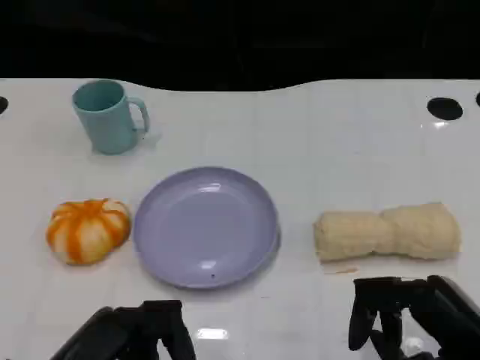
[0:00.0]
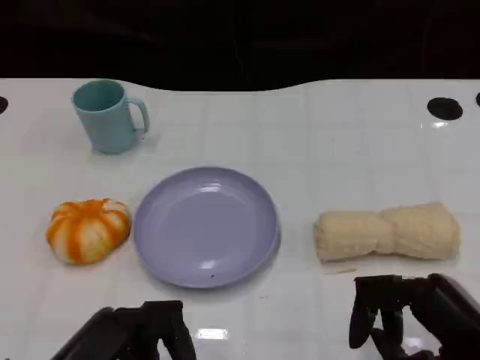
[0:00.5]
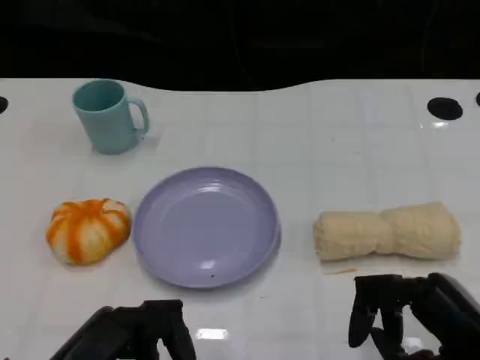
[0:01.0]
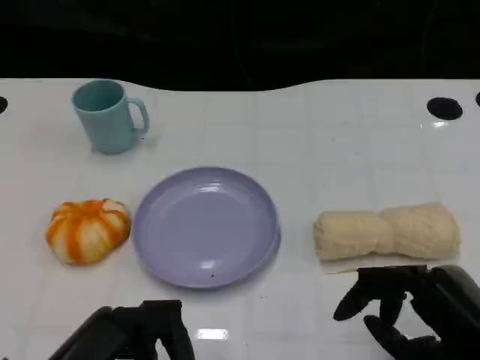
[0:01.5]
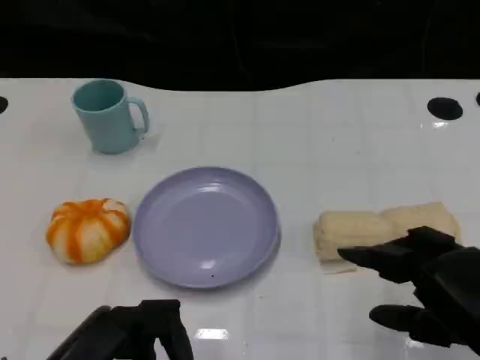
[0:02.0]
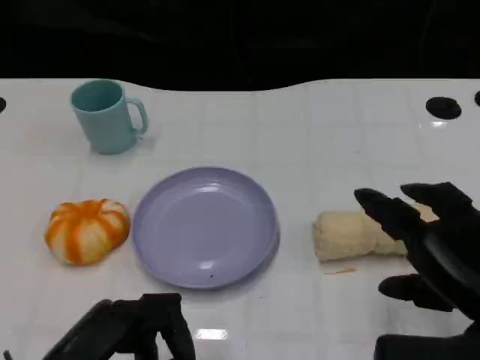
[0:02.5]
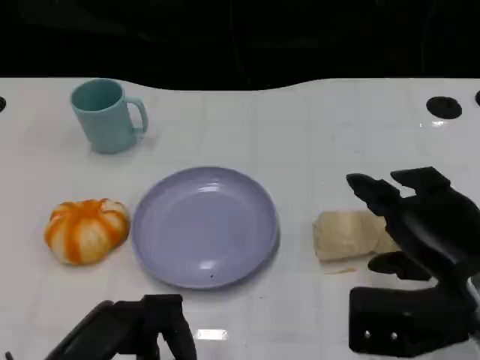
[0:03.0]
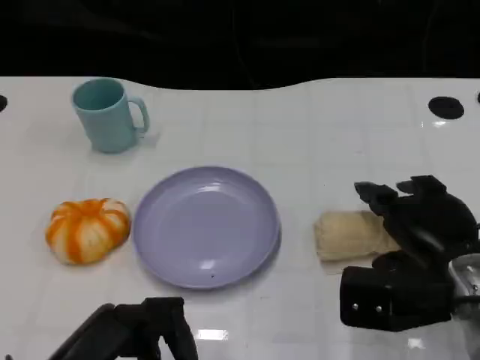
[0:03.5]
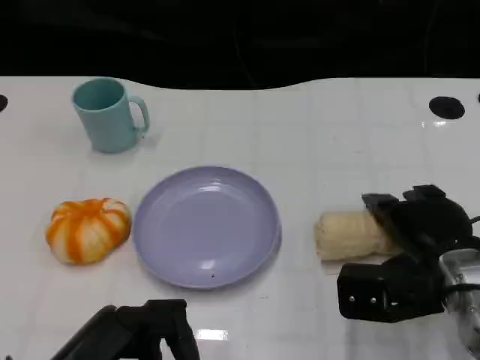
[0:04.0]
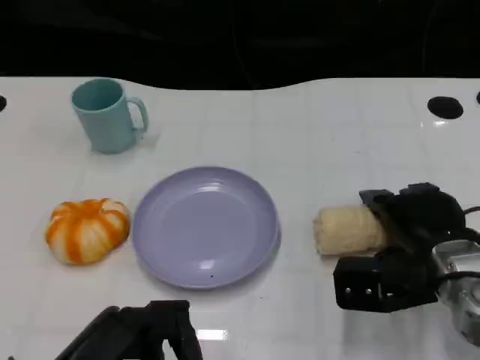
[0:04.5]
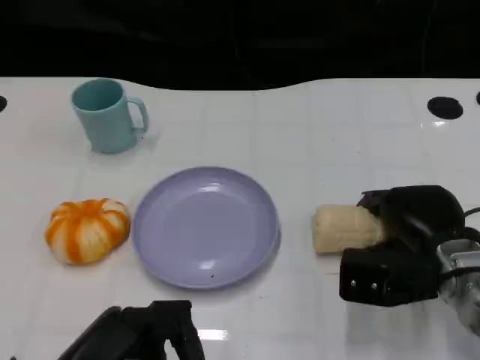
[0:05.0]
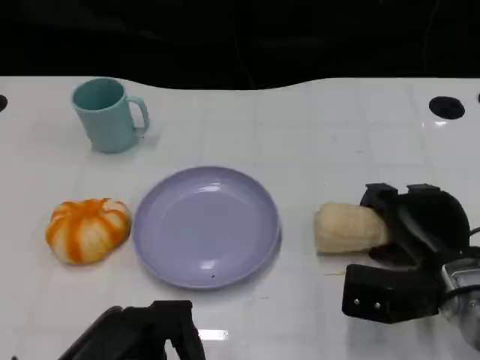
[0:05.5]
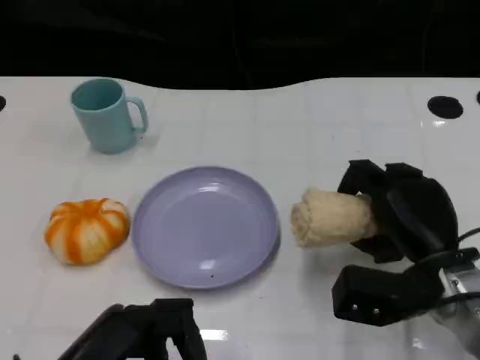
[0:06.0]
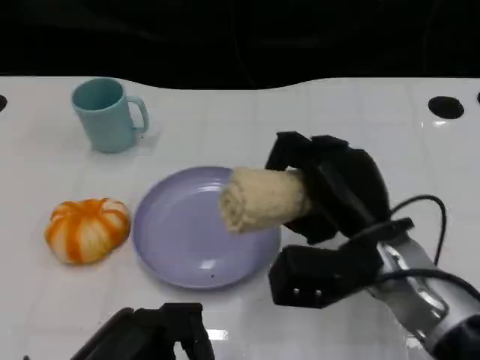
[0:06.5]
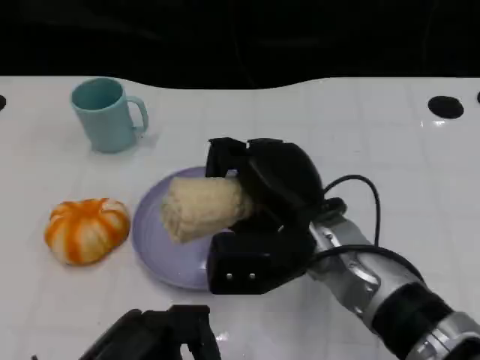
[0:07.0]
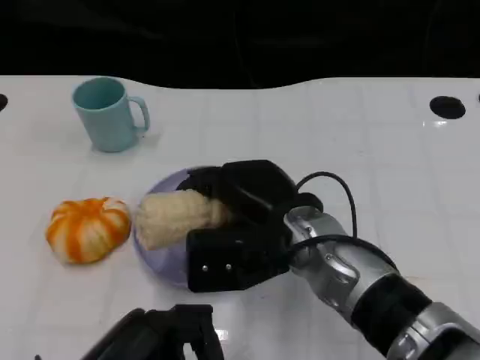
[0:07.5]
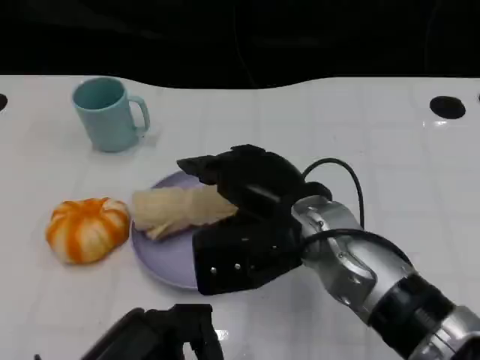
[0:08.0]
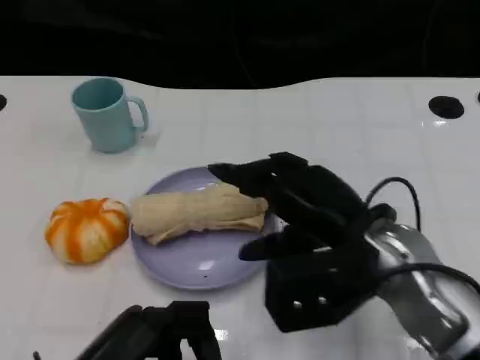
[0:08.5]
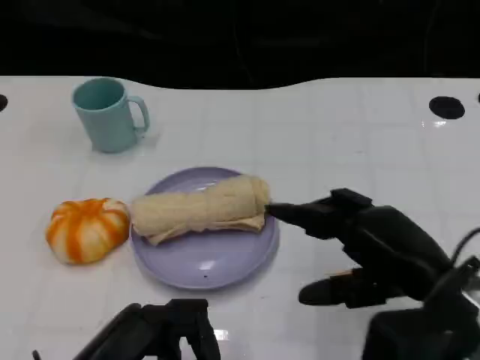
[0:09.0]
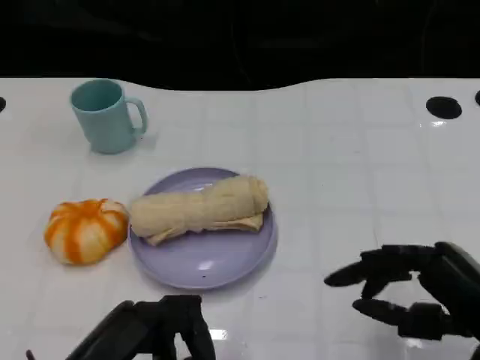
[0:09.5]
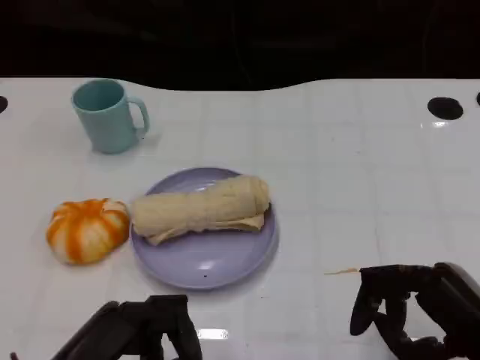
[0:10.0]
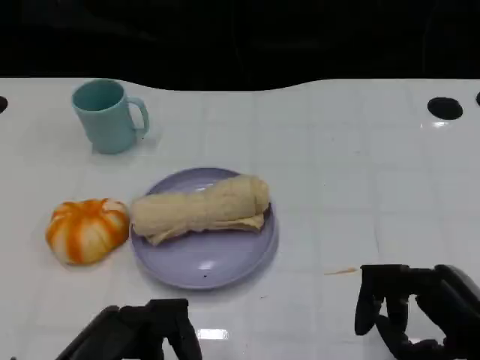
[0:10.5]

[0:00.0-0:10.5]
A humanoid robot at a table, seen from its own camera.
Task of the whole recording: Grasp the towel on the left side of the plate with the left hand and place it into the plate.
0:02.0 to 0:04.0: The right hand moves forward, some 10 cm.
0:04.0 to 0:06.5: The right hand is displaced to the left by approximately 10 cm.
0:06.5 to 0:08.5: The right hand moves approximately 5 cm to the left and comes back.
0:08.5 to 0:10.5: The right hand moves to the right and backward, approximately 15 cm.

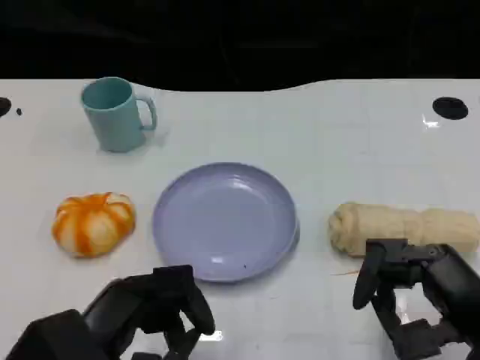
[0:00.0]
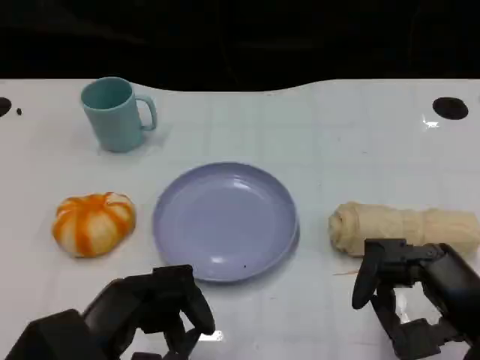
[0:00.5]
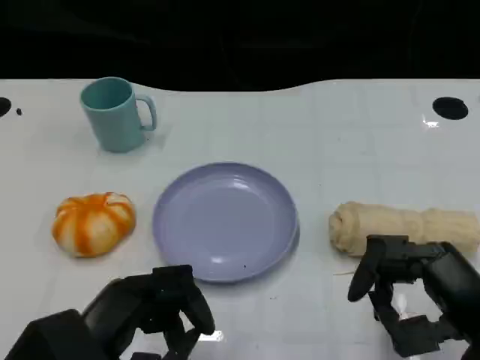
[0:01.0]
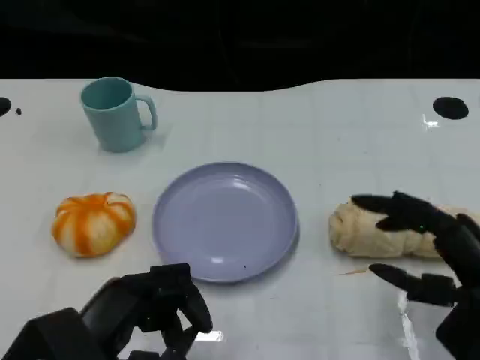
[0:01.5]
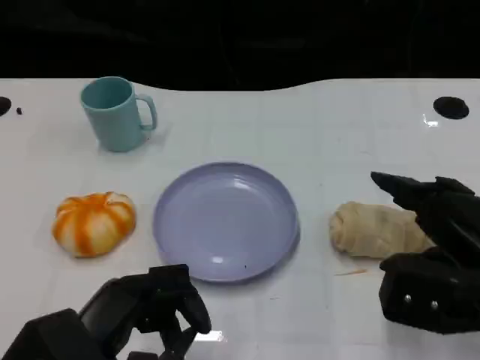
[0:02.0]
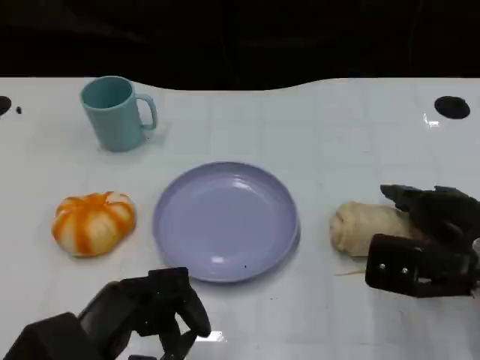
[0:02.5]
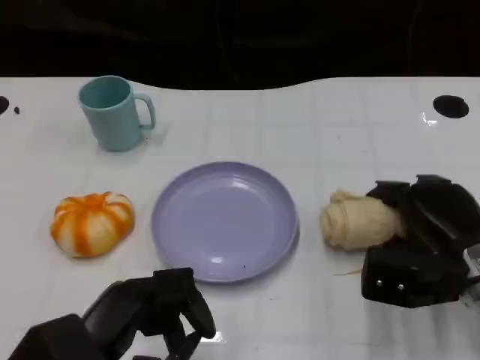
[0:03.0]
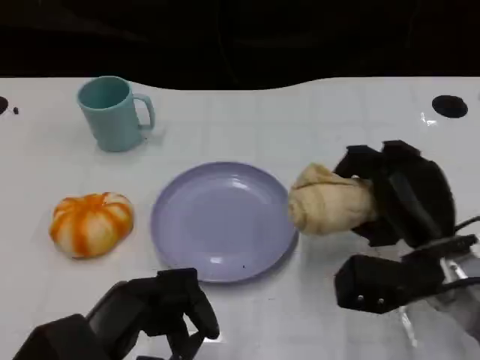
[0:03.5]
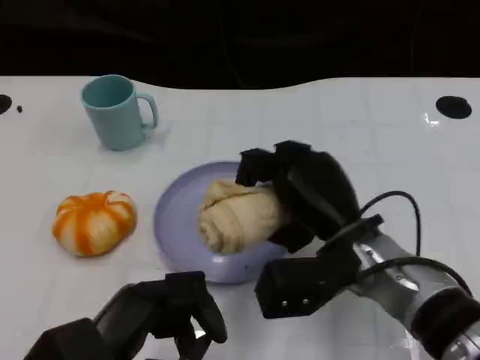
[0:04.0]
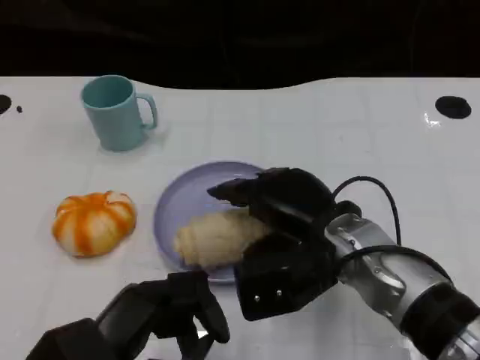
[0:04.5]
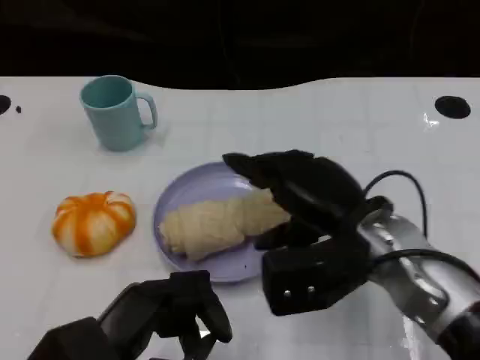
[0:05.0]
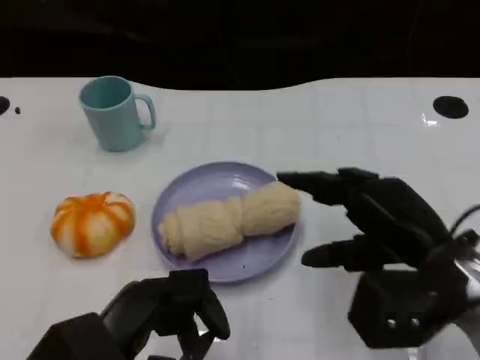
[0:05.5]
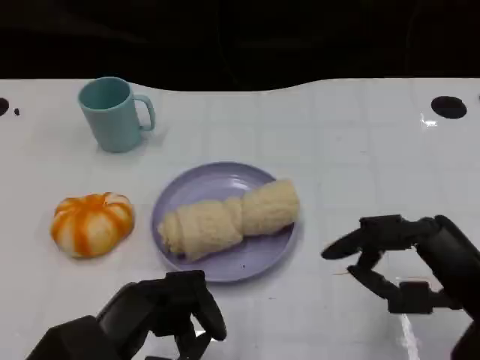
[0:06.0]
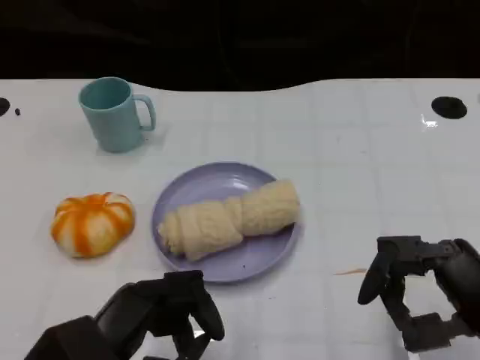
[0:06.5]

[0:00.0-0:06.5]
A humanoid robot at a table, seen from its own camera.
Task of the whole recording: Grasp the towel on the left side of the plate with the left hand and place it into the plate.
0:00.0 to 0:02.0: The right hand travels forward by about 5 cm.
0:02.0 to 0:04.5: The right hand moves to the left, approximately 15 cm.
0:04.5 to 0:06.5: The right hand heads to the right and backward, covering roughly 20 cm.

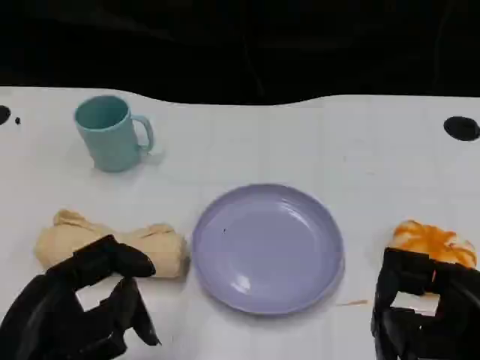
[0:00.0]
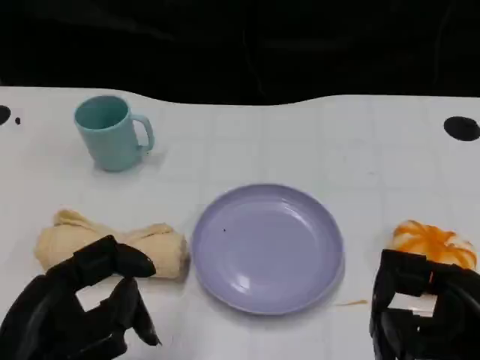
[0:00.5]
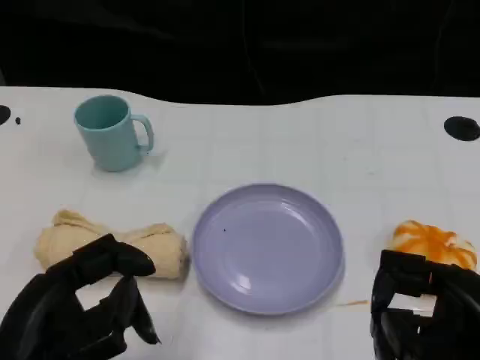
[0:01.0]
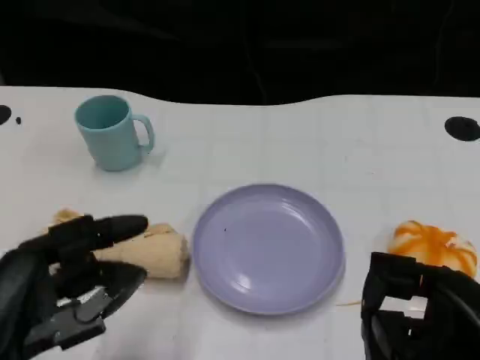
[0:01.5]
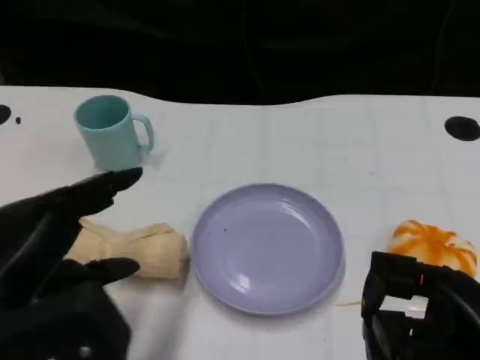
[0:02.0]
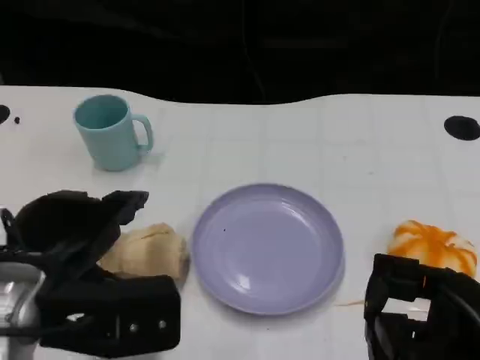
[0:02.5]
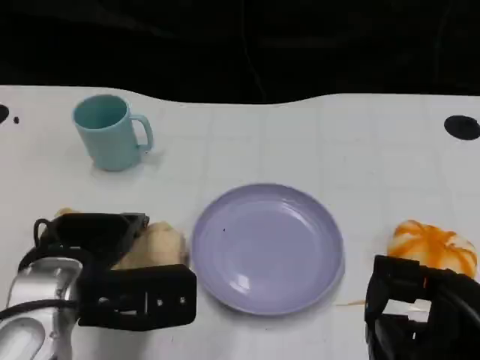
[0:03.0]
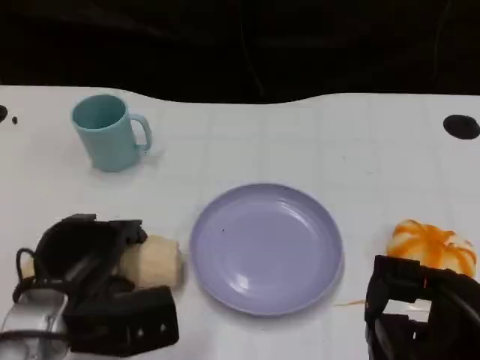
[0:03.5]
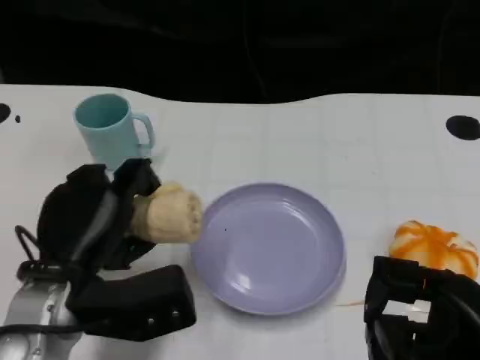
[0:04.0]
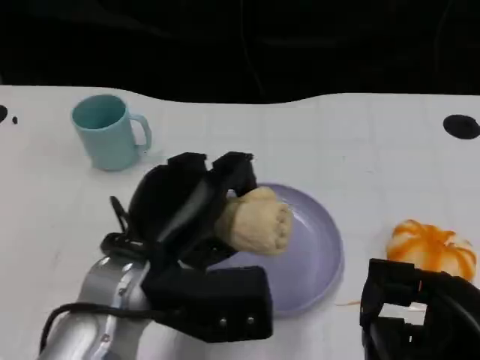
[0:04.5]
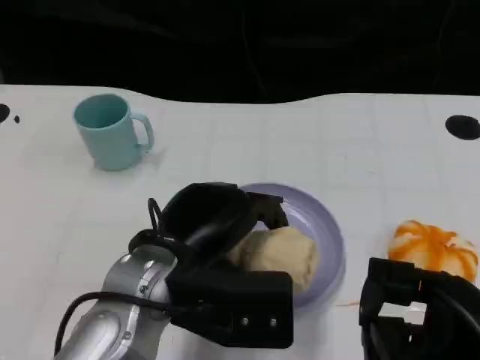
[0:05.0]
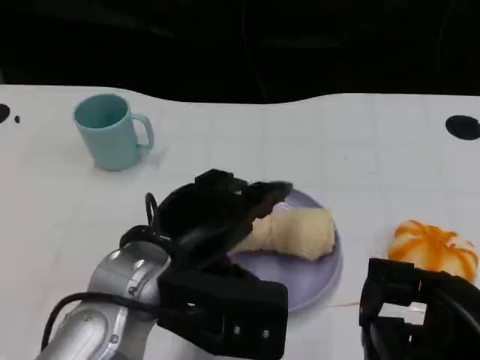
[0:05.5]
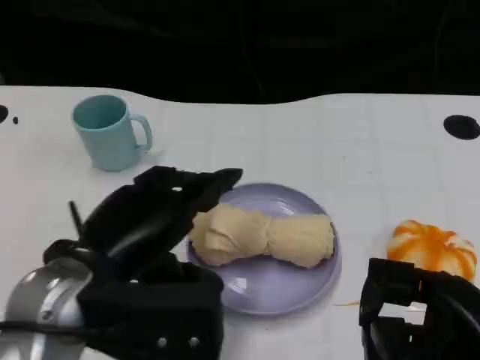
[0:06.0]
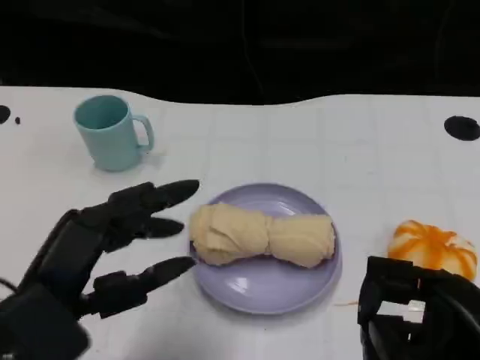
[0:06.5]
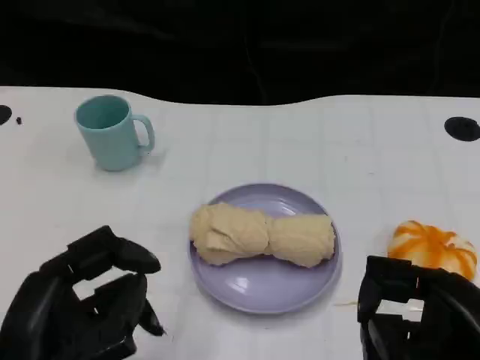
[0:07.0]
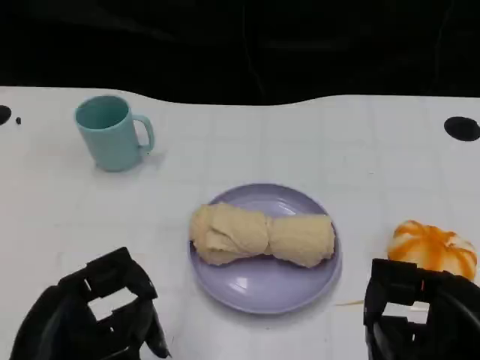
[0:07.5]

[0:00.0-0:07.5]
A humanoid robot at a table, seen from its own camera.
Task of the whole recording: Grasp the towel on the left side of the plate with the left hand and place it into the plate.
0:00.0 to 0:02.0: The left hand shifts by roughly 5 cm.
0:02.0 to 0:04.0: The left hand goes some 10 cm downward and forward.
0:04.0 to 0:05.5: The left hand is displaced to the right by some 5 cm.
0:05.5 to 0:07.5: The left hand heads backward and to the left, covering approximately 15 cm.

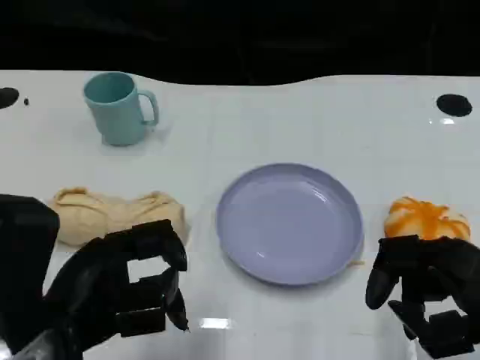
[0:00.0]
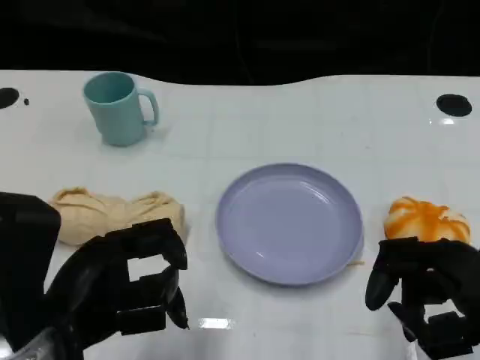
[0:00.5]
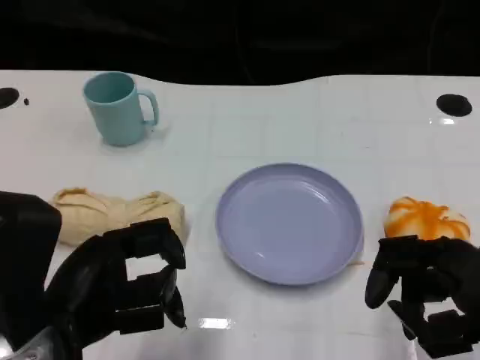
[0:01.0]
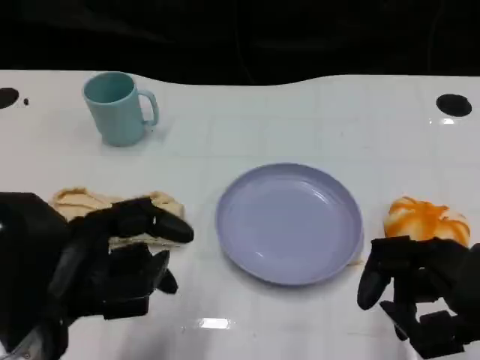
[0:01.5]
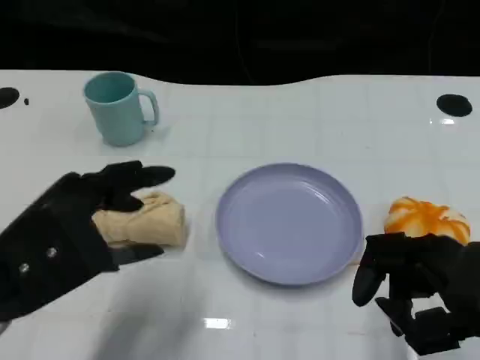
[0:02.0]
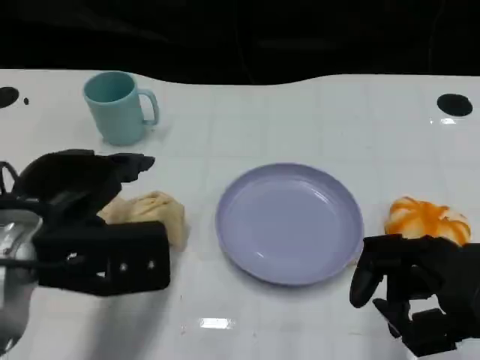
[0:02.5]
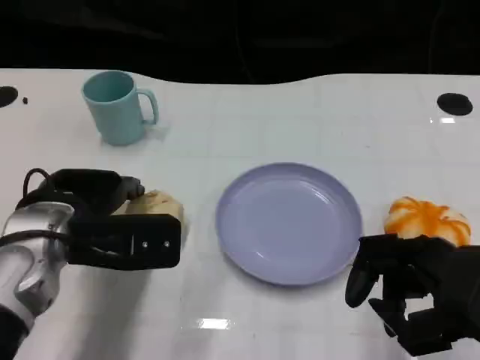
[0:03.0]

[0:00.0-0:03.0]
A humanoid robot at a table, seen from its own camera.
Task of the whole recording: Grasp the towel on the left side of the plate with the left hand and place it into the plate.
0:01.5 to 0:03.0: The left hand shifts roughly 10 cm forward.
